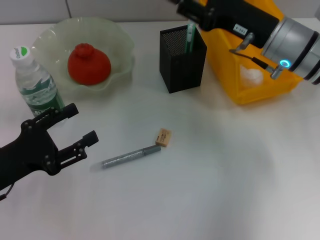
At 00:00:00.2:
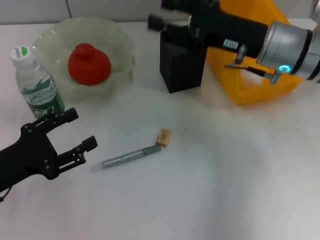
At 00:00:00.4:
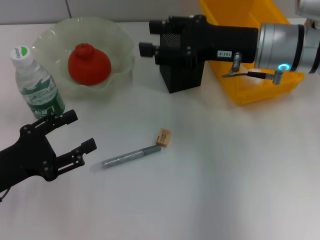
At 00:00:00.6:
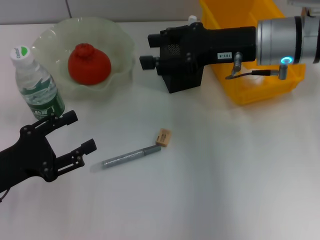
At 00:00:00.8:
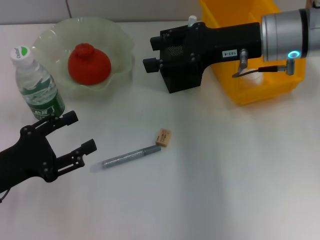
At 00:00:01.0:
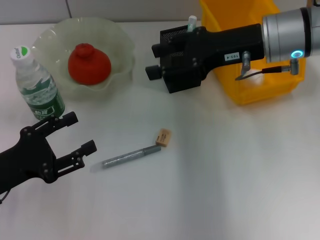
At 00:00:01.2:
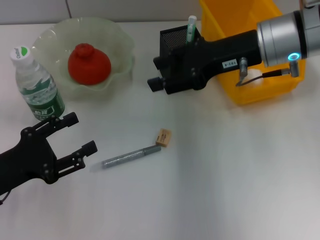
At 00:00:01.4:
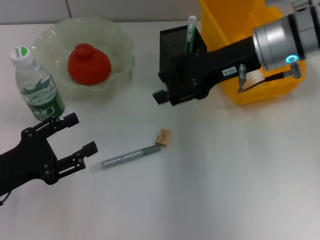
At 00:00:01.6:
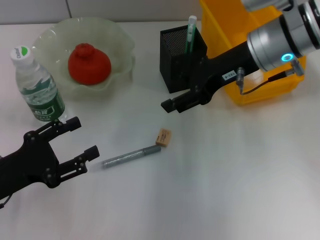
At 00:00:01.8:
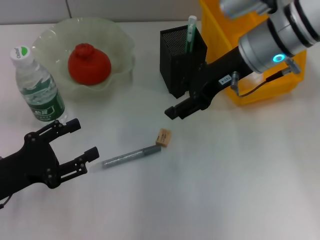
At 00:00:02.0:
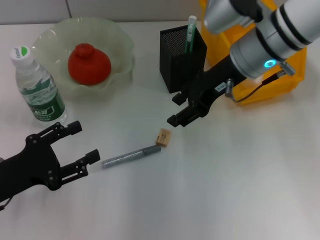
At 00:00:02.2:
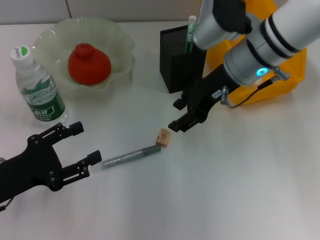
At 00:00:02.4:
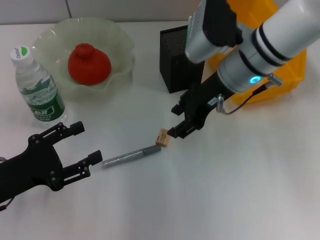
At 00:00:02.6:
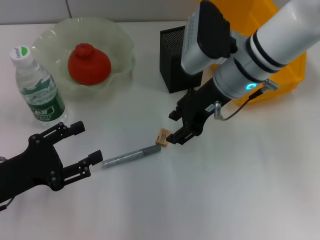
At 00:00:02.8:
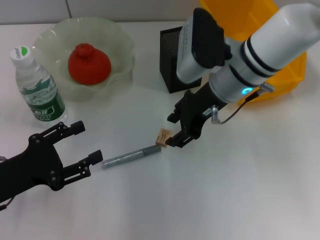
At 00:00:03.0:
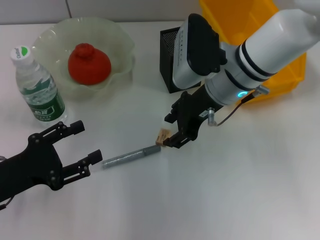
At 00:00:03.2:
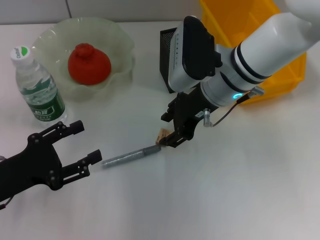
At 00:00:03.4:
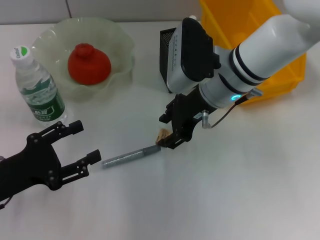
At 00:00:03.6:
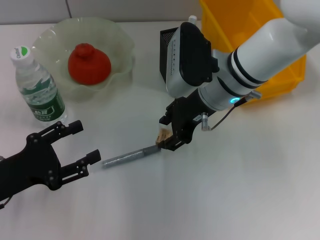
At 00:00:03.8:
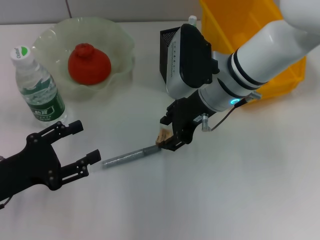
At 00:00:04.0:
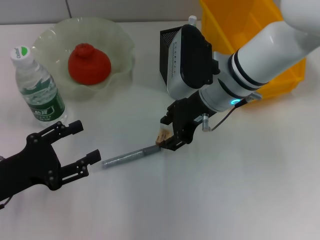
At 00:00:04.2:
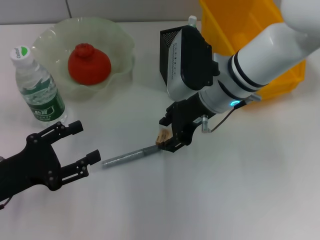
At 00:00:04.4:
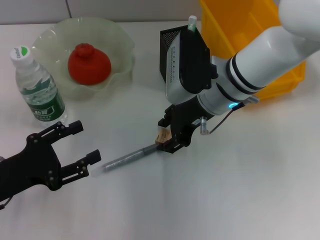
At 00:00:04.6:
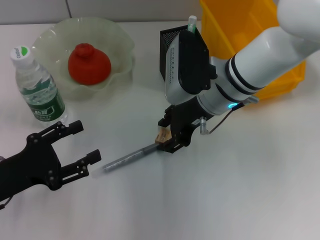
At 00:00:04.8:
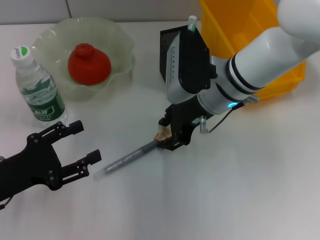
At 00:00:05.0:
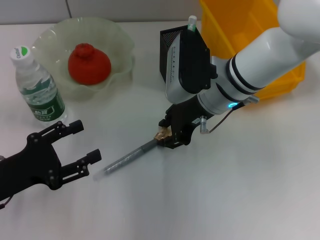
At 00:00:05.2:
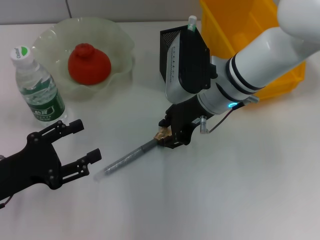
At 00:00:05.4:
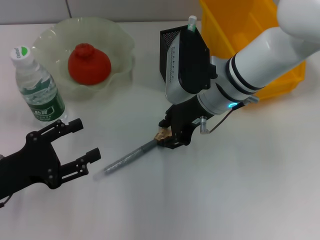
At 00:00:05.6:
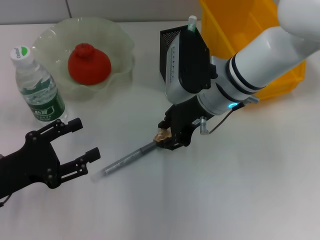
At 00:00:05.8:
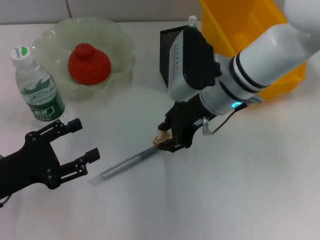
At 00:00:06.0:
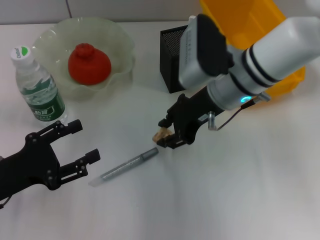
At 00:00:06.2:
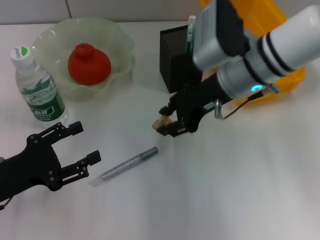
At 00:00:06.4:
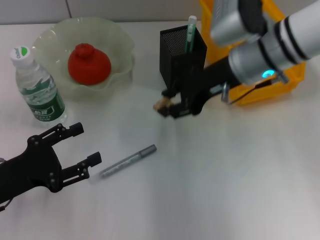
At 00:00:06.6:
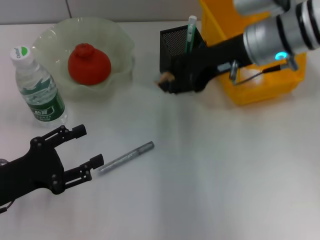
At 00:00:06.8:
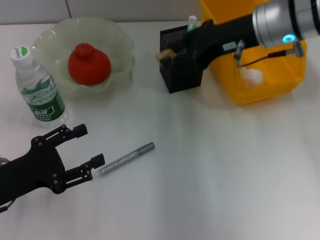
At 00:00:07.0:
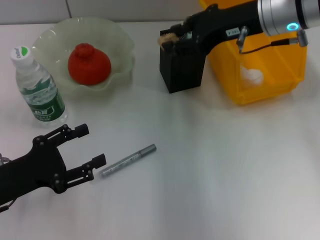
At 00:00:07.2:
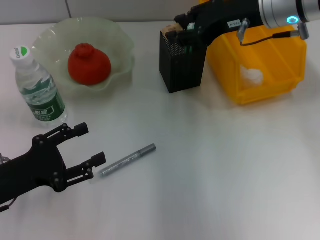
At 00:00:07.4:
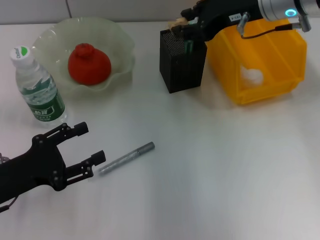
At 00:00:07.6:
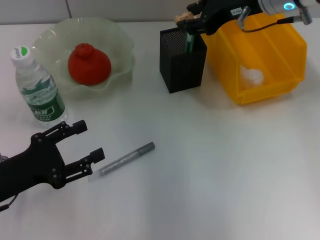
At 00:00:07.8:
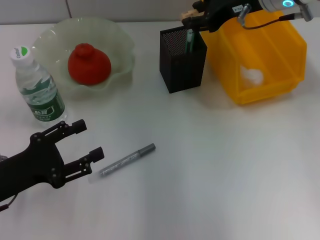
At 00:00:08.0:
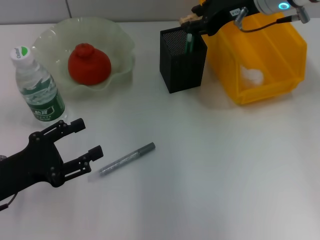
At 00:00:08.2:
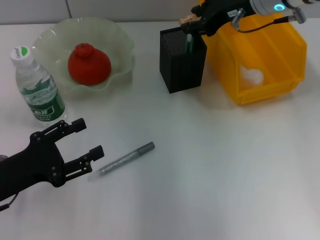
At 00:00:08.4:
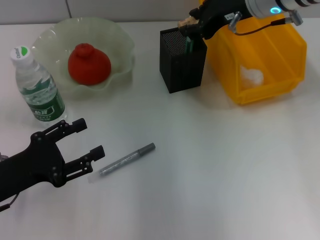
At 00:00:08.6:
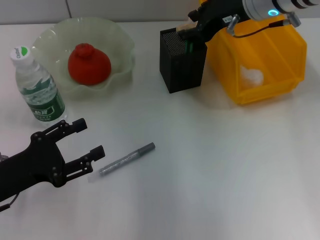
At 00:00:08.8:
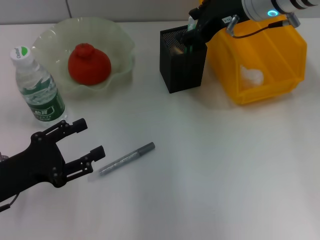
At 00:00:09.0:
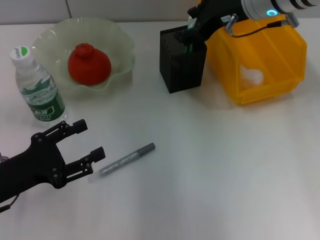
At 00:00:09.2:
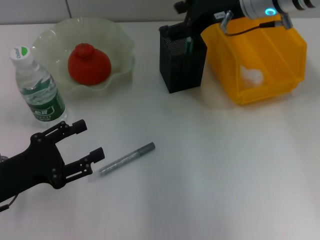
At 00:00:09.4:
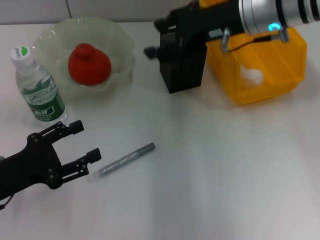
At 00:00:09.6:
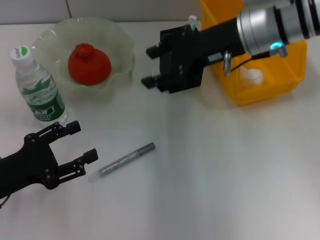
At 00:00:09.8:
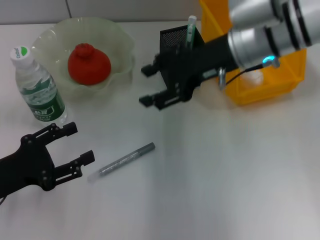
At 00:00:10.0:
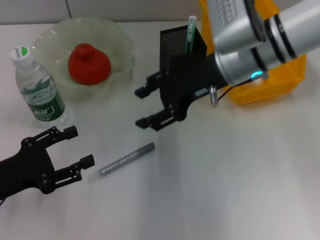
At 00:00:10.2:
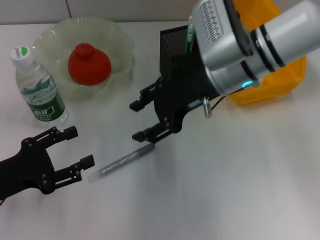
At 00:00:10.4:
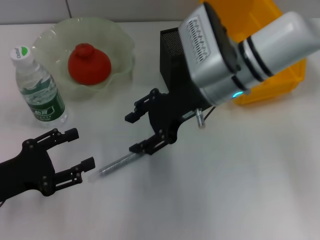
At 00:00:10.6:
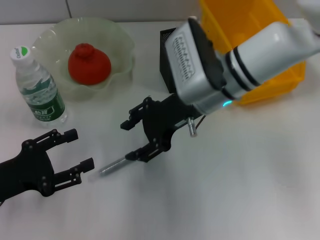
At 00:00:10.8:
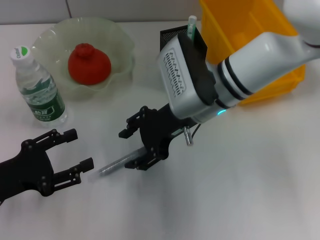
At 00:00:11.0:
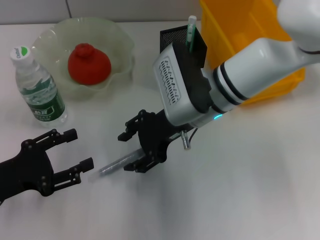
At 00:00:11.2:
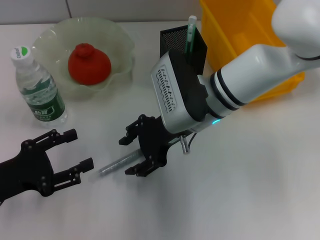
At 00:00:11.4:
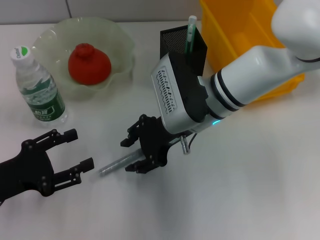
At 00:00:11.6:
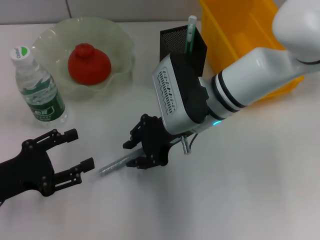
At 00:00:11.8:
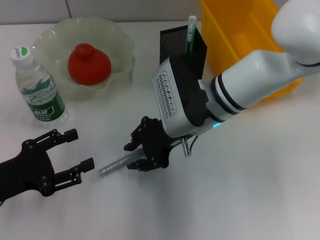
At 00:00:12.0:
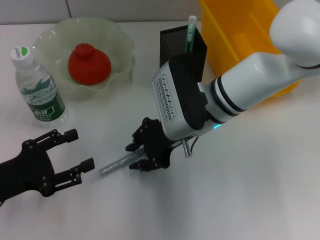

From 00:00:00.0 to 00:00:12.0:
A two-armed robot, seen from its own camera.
Step, from 00:00:00.0 to 00:00:05.0: Grab the eraser with the right hand.
Step, from 00:00:05.4 to 00:00:09.0: Put the eraser into the pen holder with the right hand.
From 00:00:00.0 to 00:00:01.6: The right gripper moves roughly 5 cm.
From 00:00:01.6 to 00:00:03.0: The right gripper travels to the left by roughly 5 cm.
From 00:00:03.0 to 00:00:06.0: The grippers stay close to where they were, moving slightly.
From 00:00:06.0 to 00:00:07.6: The right gripper heads upward, to the right and forward, covering some 10 cm.
From 00:00:07.6 to 00:00:09.0: There are only small adjustments of the grippers.
From 00:00:09.0 to 00:00:10.4: The right gripper travels downward, backward and to the left by about 10 cm.
From 00:00:10.4 to 00:00:12.0: The right gripper moves about 5 cm, and closes up.

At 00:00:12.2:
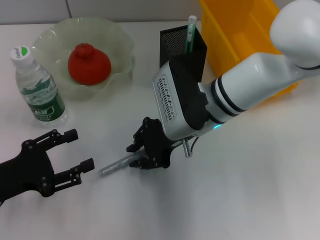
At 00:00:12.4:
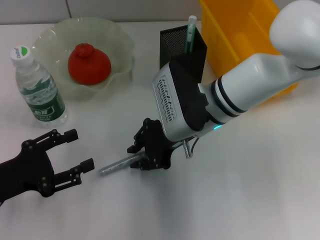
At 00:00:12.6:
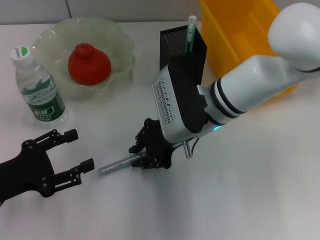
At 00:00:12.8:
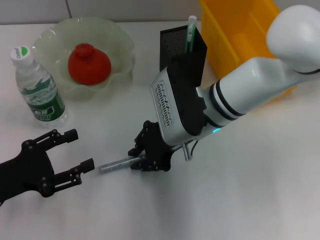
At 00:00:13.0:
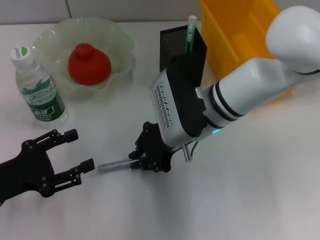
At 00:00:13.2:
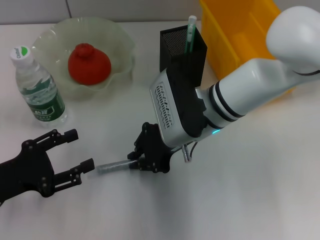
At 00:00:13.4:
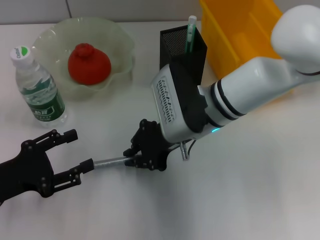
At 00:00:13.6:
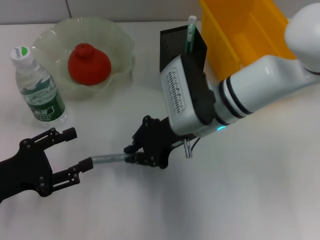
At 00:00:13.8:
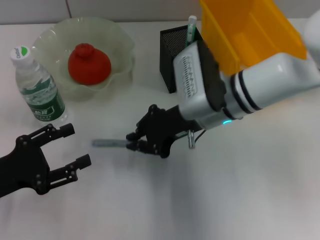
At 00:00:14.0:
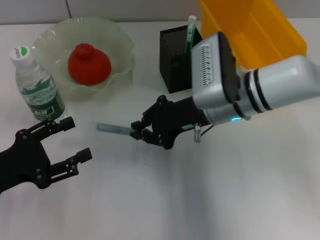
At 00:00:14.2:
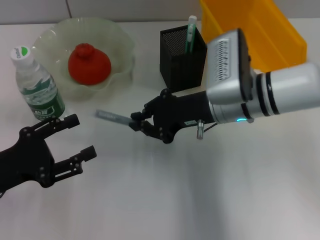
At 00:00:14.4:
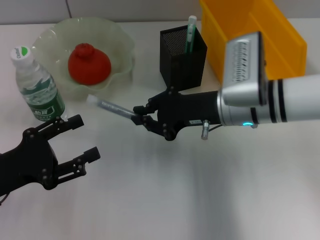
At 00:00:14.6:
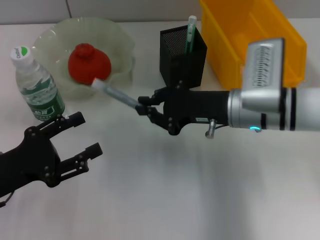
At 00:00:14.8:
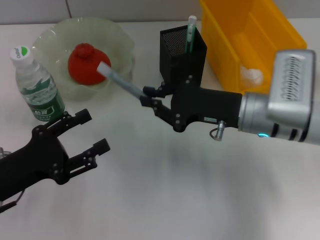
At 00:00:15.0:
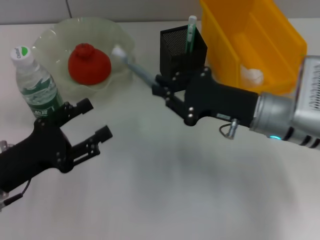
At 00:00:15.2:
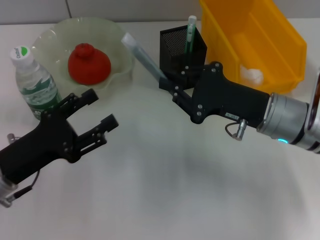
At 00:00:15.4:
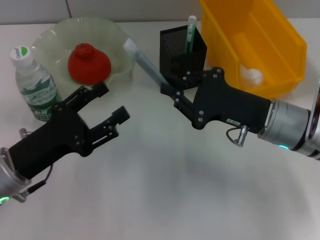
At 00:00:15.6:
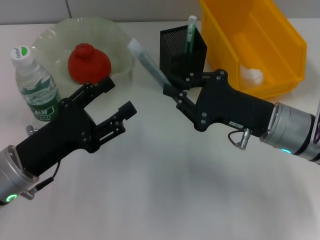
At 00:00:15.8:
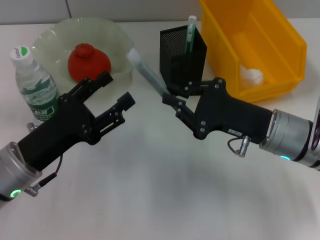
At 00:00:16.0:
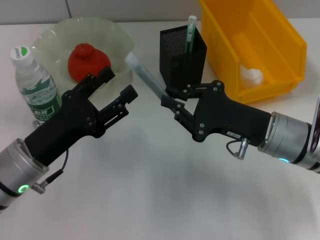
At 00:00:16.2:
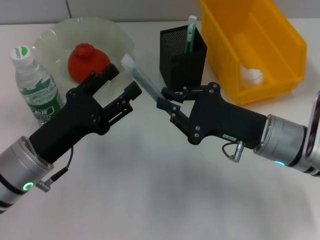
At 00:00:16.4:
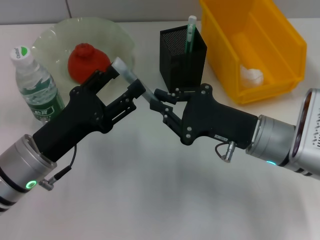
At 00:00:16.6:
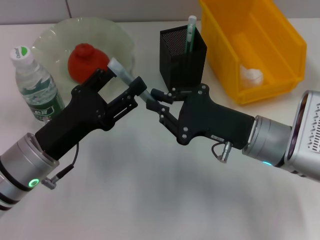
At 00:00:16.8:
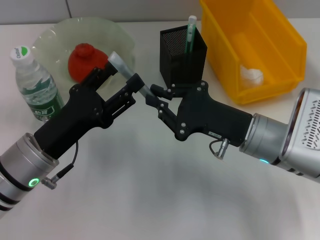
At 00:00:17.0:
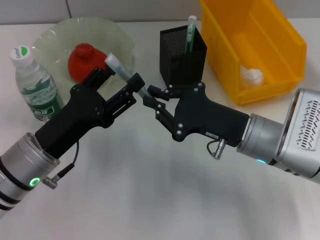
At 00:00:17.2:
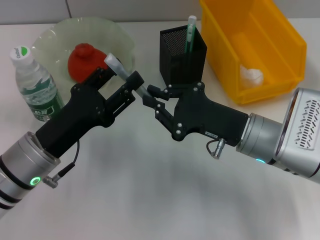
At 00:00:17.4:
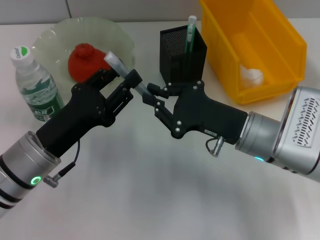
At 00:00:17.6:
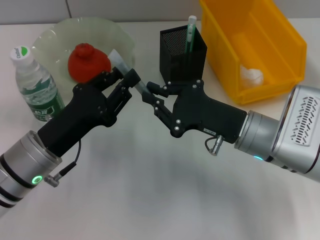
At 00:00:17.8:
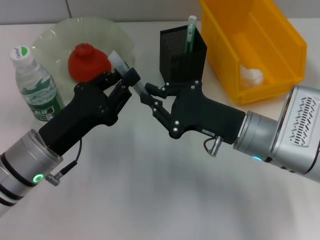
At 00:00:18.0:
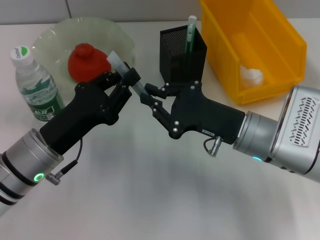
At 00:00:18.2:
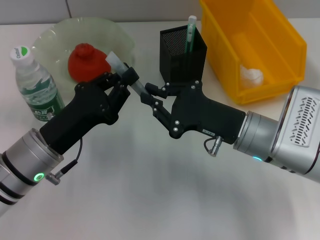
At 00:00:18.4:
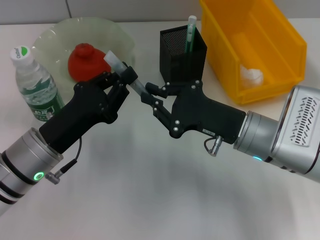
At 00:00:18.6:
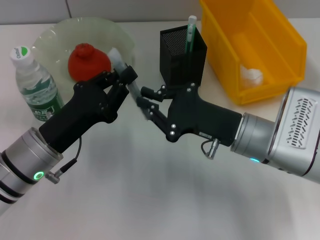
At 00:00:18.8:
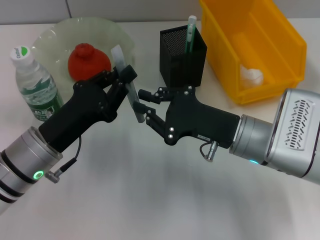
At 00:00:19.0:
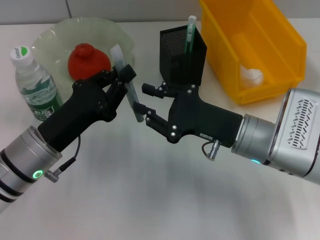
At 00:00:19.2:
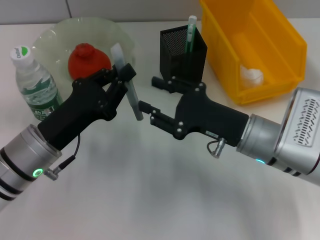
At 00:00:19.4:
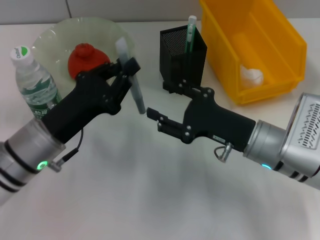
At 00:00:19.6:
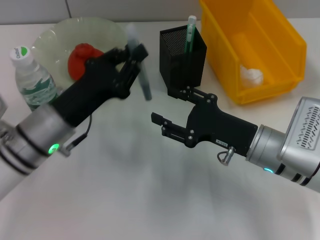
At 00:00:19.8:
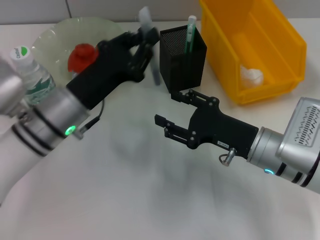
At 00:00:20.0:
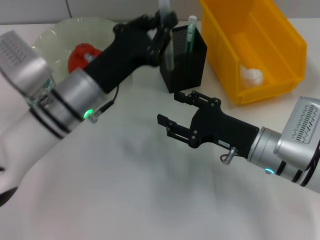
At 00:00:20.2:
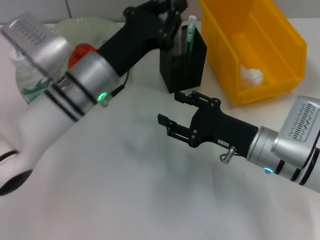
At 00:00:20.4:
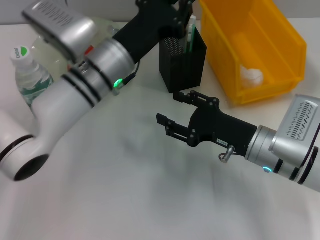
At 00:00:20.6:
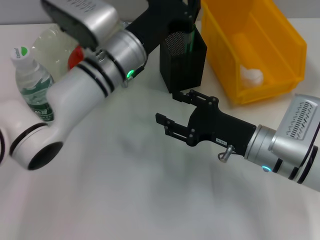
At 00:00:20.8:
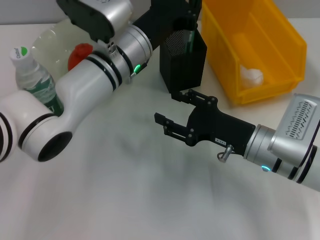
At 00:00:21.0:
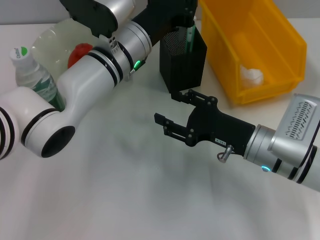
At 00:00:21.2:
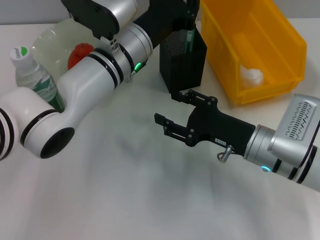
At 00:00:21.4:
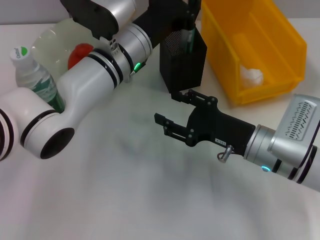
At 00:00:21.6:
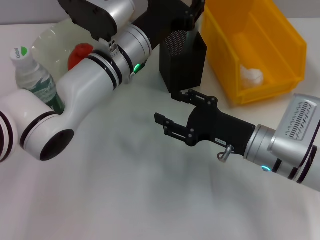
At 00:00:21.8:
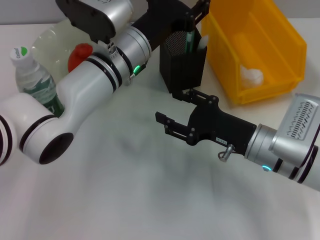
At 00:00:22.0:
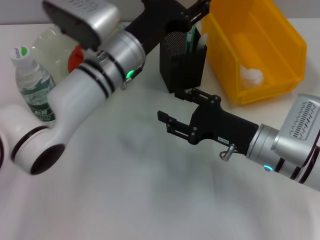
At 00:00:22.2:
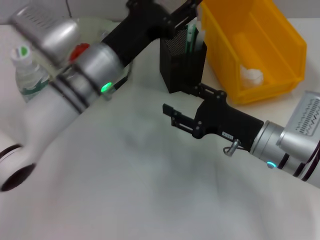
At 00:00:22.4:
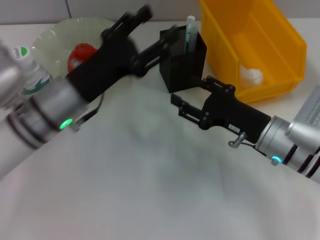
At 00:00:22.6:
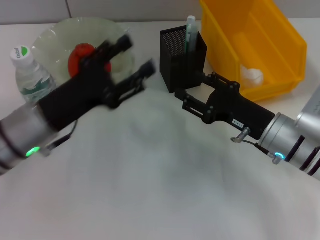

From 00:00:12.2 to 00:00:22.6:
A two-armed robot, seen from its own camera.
Step, from 00:00:13.2 to 00:00:19.2: Pass the gray glue from the right hand to the left hand.
Step, from 00:00:19.4 to 00:00:21.8: Place the gray glue into the pen holder with the left hand.
From 00:00:12.2 to 00:00:13.6: There are only small adjustments of the grippers.
From 00:00:13.6 to 00:00:15.2: The right gripper heads to the right, covering approximately 10 cm.
From 00:00:15.2 to 00:00:16.6: The left gripper travels to the right by about 5 cm.
From 00:00:16.6 to 00:00:18.2: The left gripper closes.
From 00:00:18.2 to 00:00:19.6: The right gripper opens up.
From 00:00:19.6 to 00:00:21.2: The left gripper goes some 15 cm to the right and forward.
From 00:00:21.2 to 00:00:22.6: The left gripper moves to the left and backward, about 20 cm, and opens.
